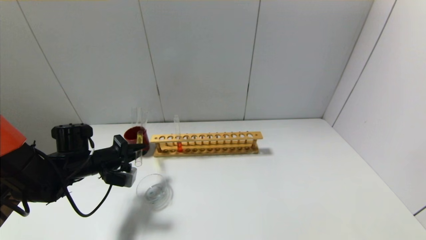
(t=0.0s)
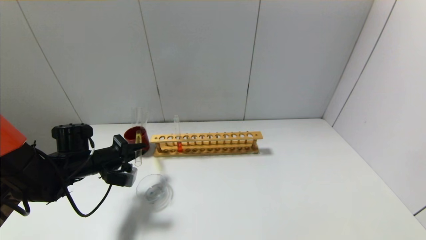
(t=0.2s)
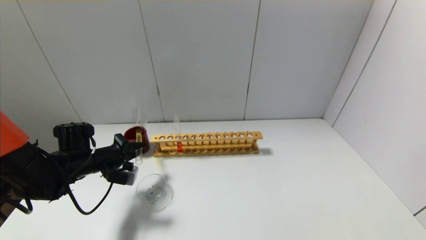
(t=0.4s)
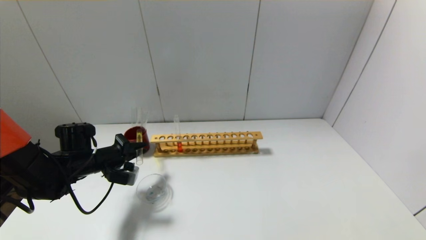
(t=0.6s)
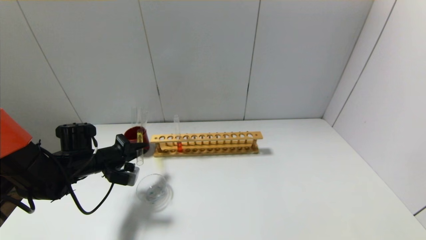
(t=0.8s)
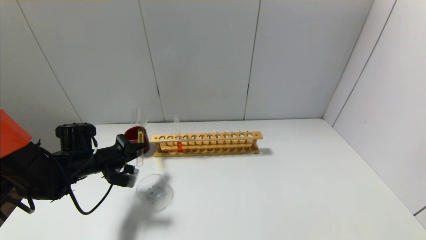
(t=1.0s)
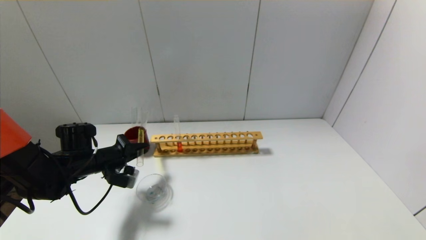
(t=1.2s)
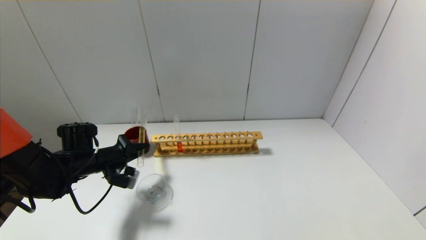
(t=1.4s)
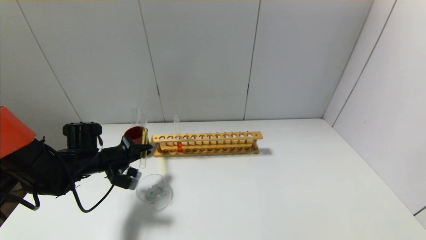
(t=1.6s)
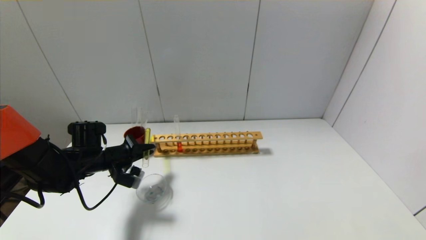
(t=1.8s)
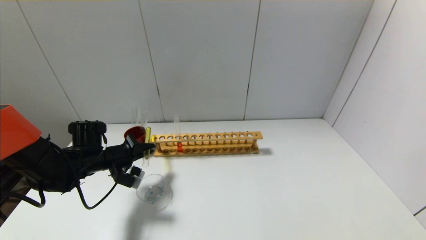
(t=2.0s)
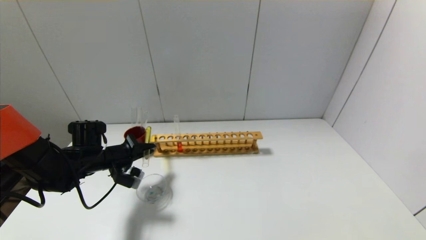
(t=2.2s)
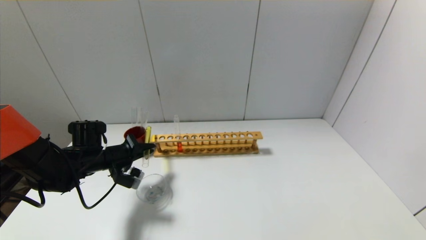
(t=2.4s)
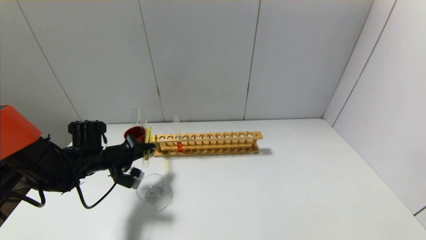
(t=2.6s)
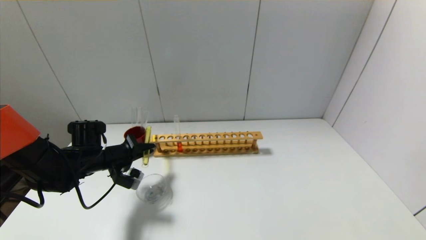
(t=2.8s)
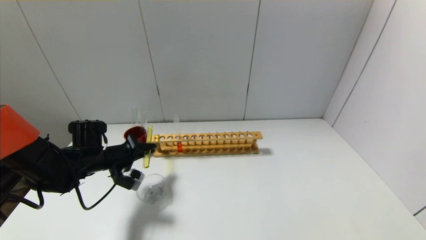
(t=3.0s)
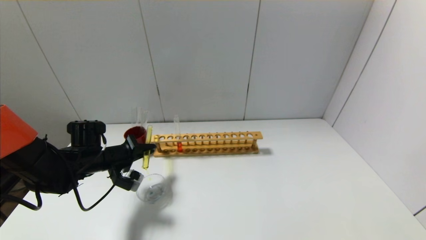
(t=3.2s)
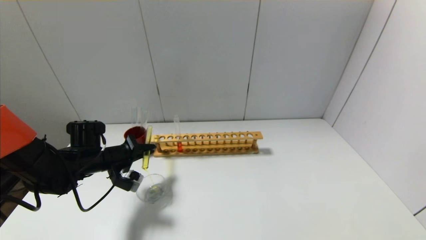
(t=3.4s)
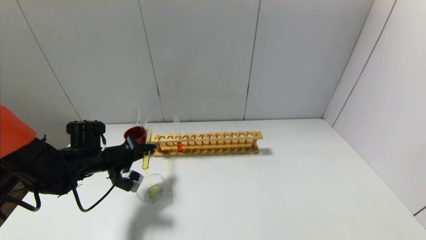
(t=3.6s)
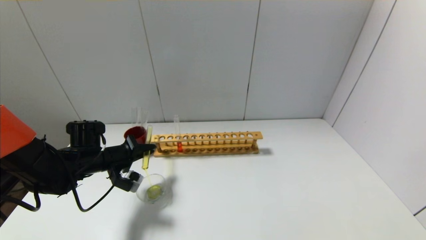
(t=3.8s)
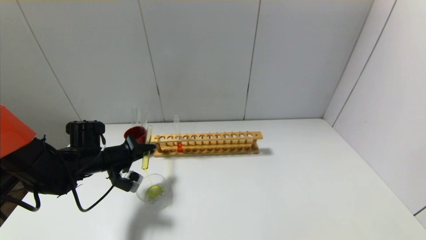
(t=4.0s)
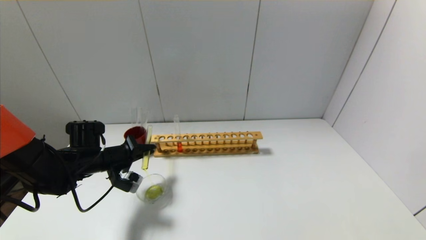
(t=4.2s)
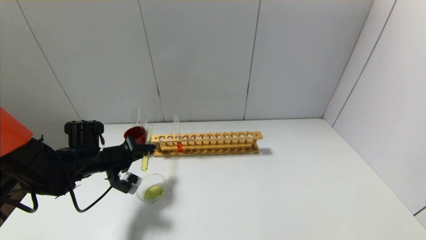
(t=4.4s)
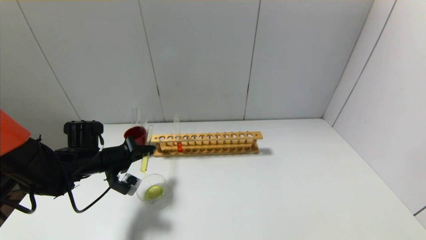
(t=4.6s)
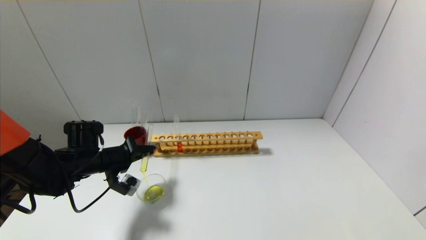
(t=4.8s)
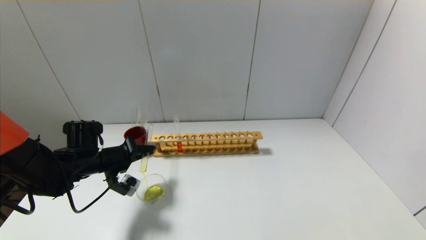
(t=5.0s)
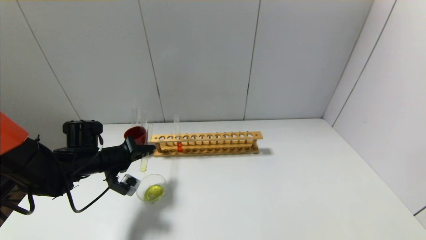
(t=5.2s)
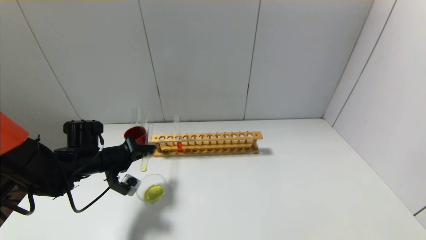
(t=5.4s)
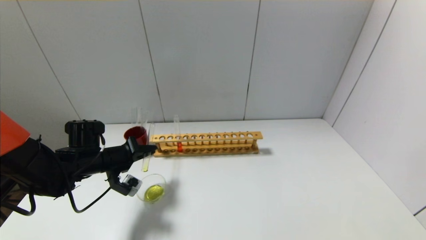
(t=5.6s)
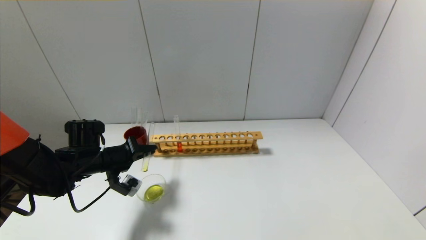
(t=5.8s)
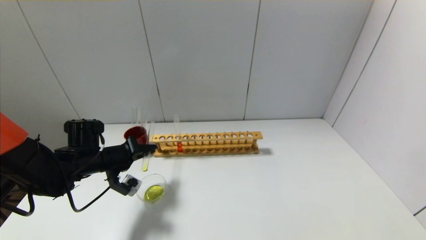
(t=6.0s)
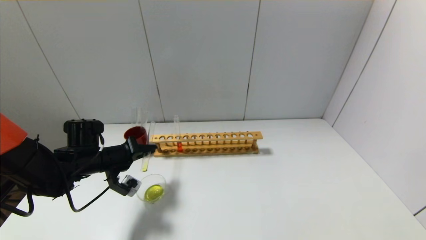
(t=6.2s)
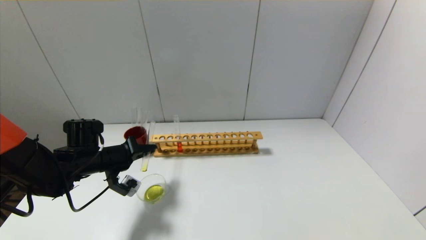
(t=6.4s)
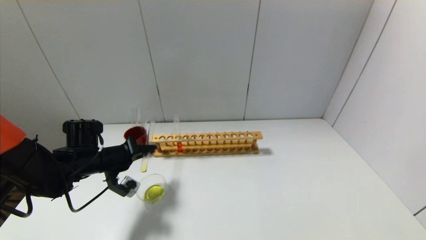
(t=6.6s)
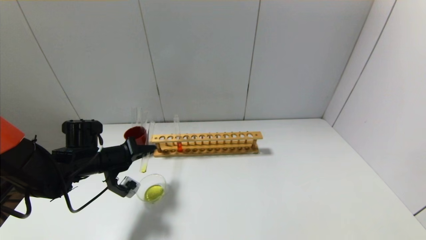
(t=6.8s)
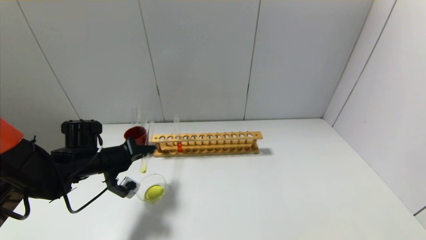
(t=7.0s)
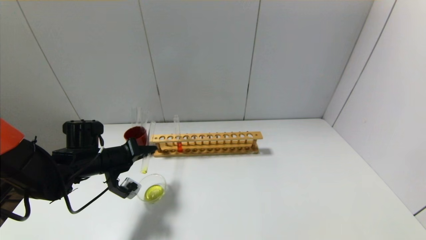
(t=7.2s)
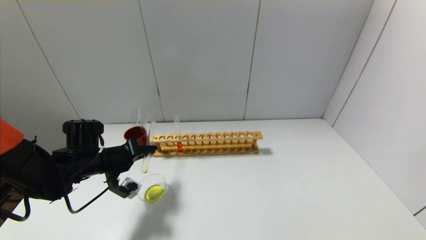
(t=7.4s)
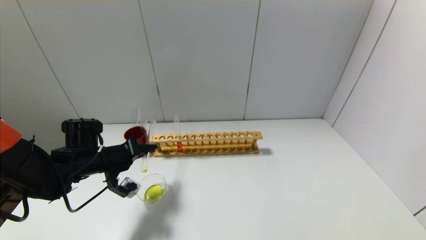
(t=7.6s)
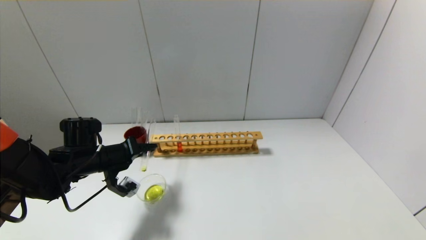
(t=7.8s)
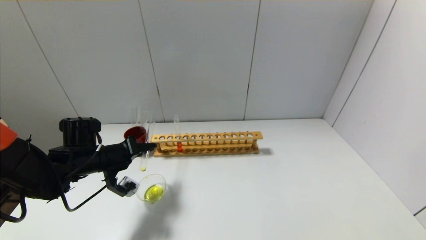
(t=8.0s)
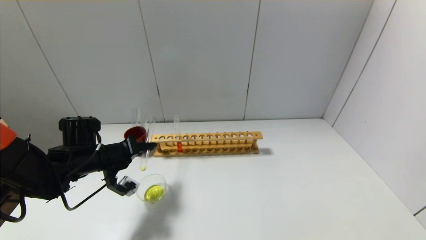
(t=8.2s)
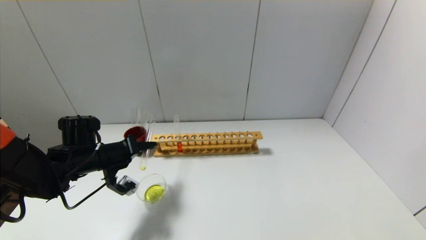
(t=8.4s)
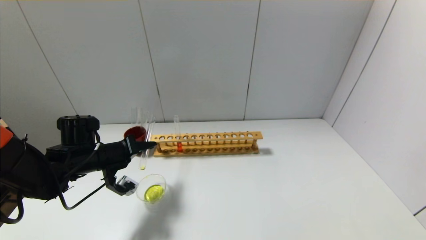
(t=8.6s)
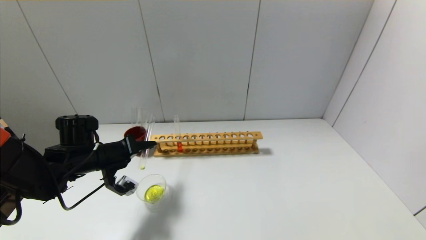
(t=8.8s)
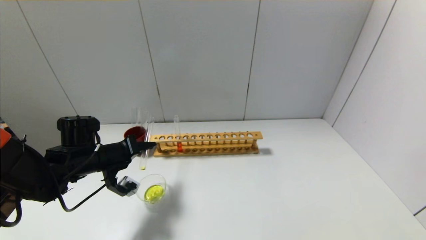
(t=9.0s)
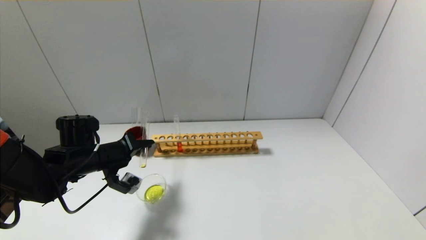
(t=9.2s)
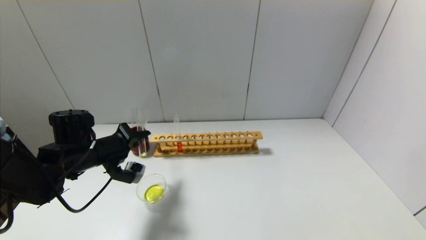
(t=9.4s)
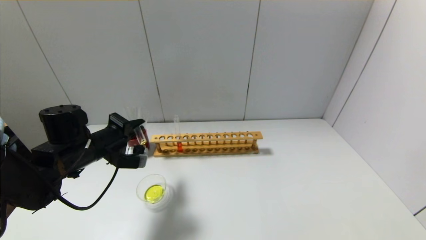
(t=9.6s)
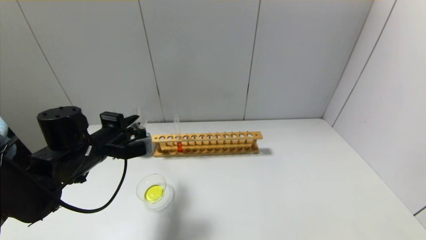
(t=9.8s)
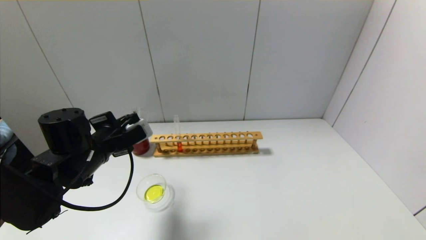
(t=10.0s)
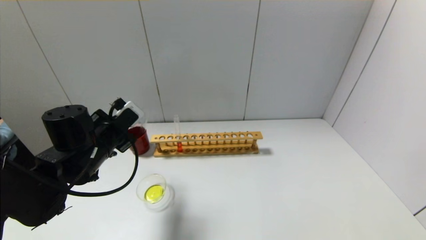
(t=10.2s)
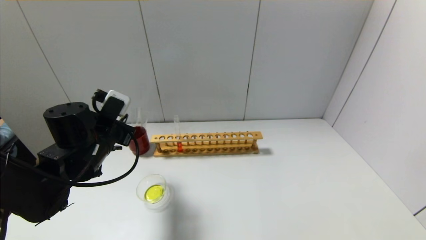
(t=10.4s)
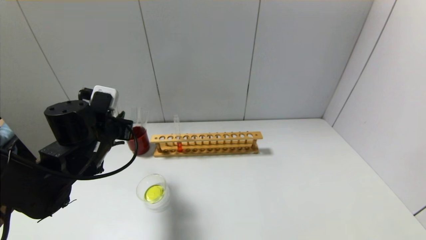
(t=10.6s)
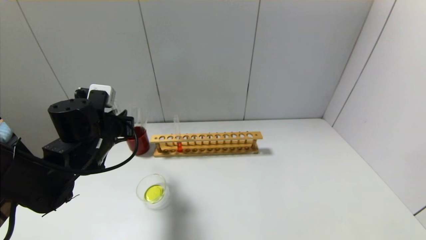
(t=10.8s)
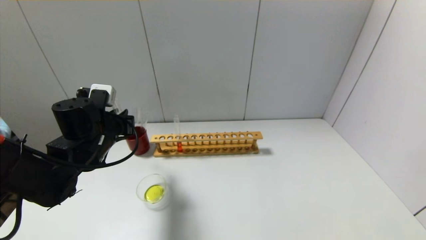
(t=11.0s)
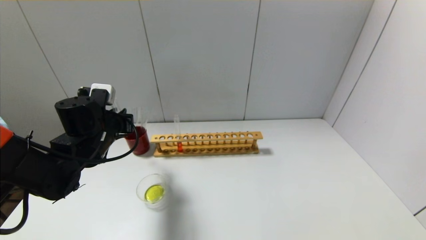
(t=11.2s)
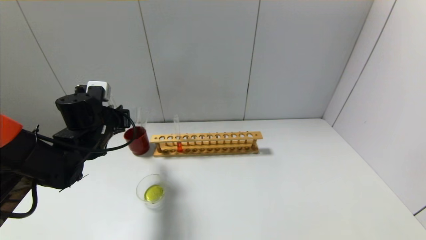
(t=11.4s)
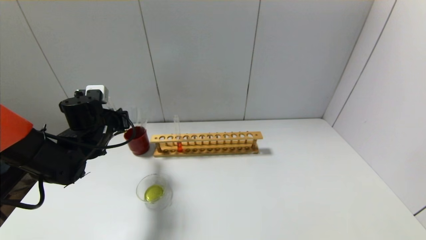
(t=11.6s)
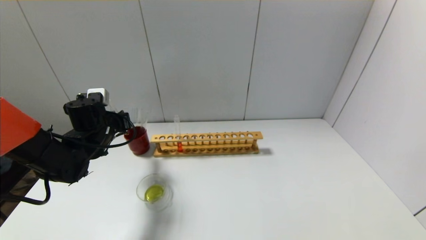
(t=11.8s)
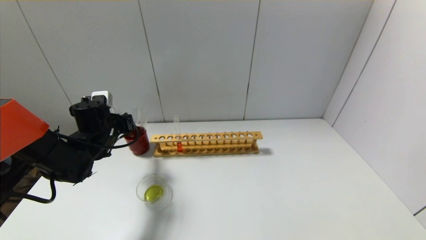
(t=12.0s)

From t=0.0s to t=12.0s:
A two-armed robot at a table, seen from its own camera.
Step, from t=0.0s to t=9.4s: Pour the yellow reagent into the graduated cylinder with the left gripper.
From t=0.0s to t=3.0s: The grippers make only small movements.
From t=3.0s to t=4.4s: Both grippers stay about where they are.
From t=4.4s to t=7.6s: The grippers stay close to where they were, moving slightly.
From t=7.6s to t=9.0s: Both grippers stay about where they are.
From t=9.0s to t=10.4s: The left gripper travels upward by approximately 5 cm.
From t=10.4s to t=12.0s: The left gripper goes about 10 cm forward.

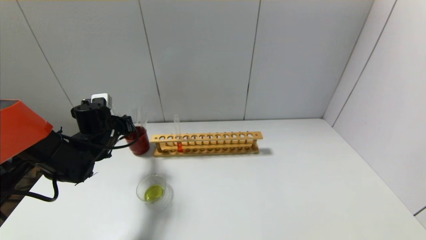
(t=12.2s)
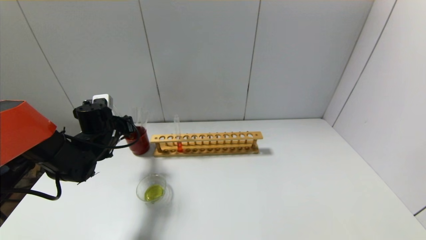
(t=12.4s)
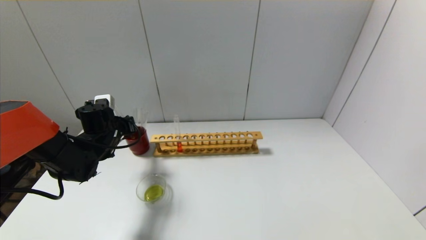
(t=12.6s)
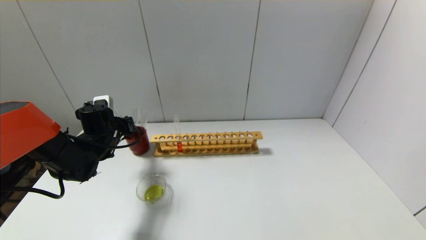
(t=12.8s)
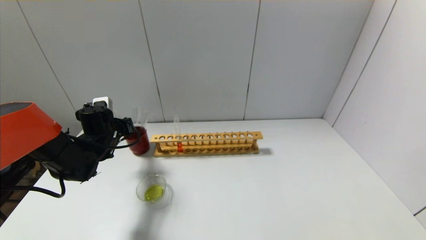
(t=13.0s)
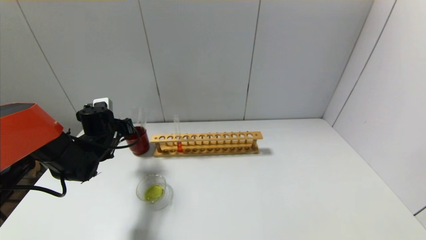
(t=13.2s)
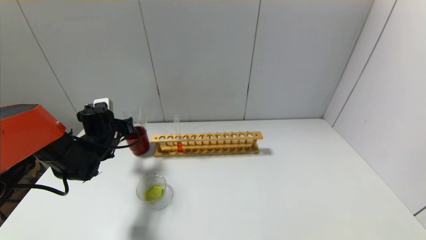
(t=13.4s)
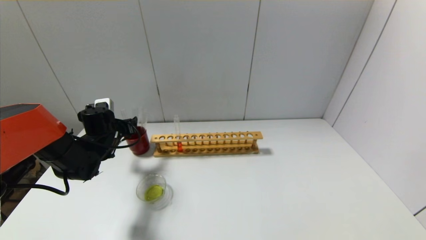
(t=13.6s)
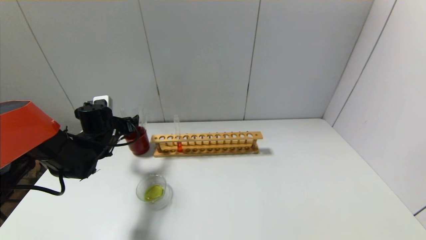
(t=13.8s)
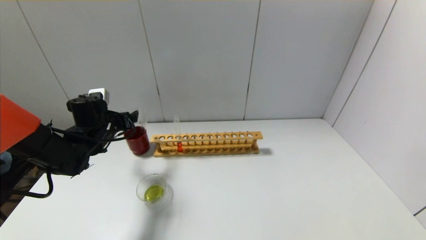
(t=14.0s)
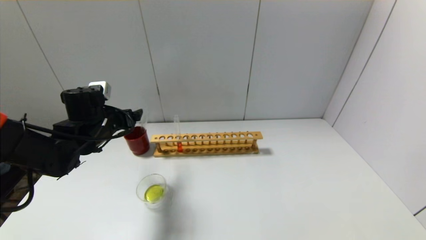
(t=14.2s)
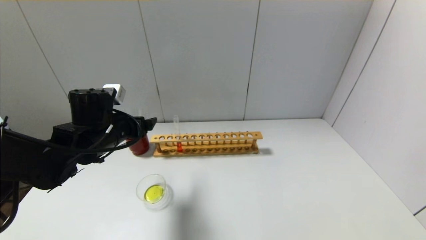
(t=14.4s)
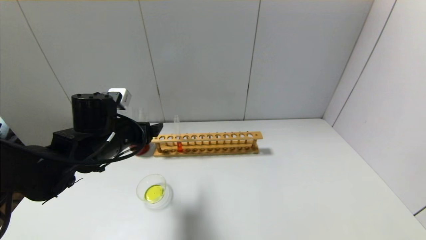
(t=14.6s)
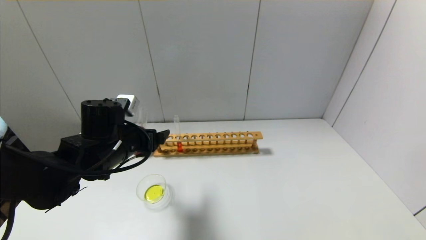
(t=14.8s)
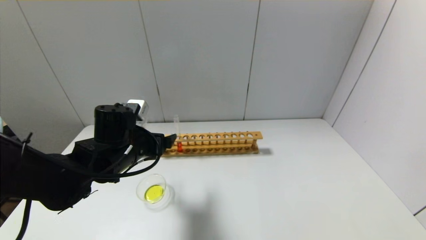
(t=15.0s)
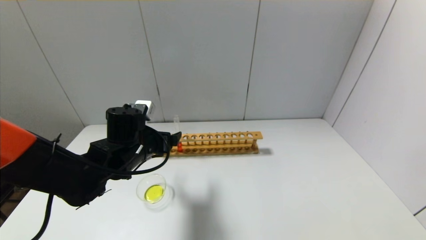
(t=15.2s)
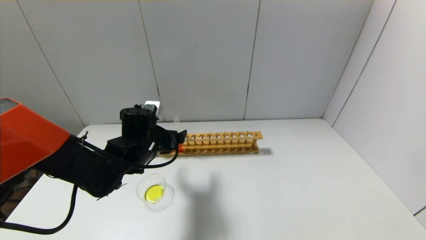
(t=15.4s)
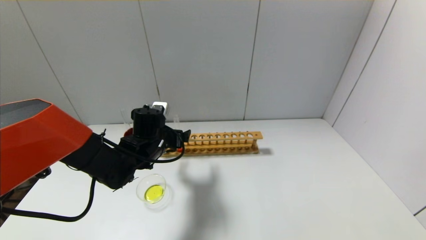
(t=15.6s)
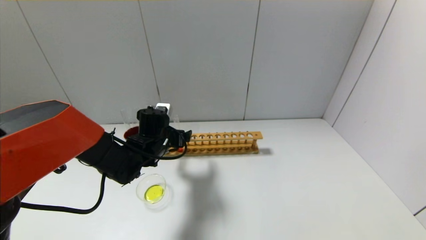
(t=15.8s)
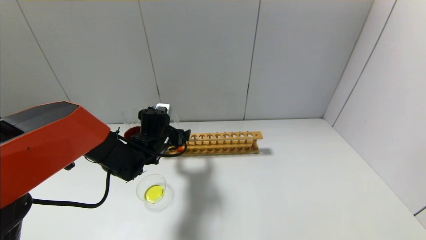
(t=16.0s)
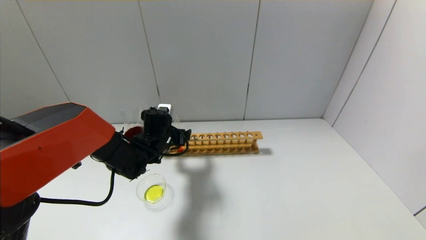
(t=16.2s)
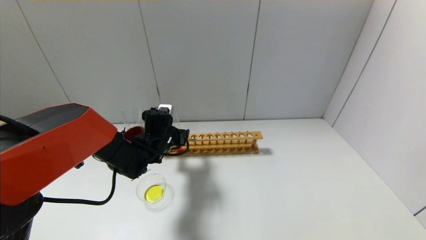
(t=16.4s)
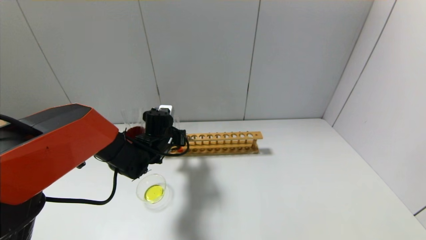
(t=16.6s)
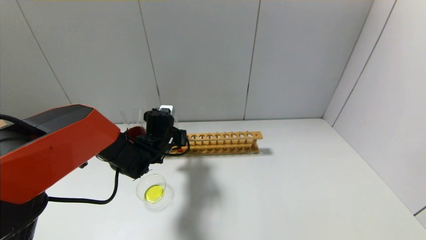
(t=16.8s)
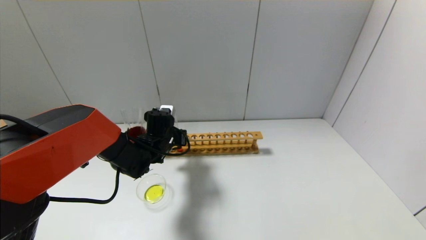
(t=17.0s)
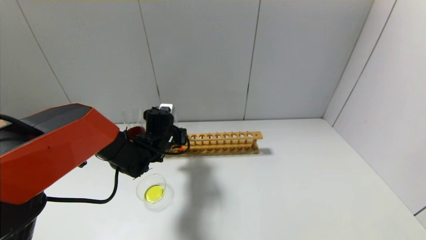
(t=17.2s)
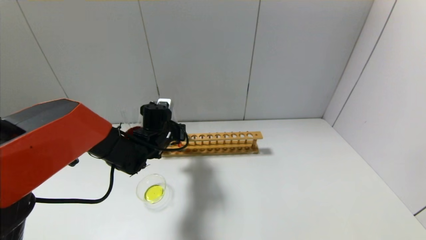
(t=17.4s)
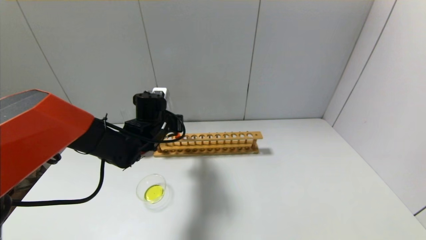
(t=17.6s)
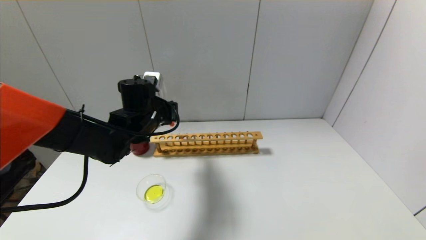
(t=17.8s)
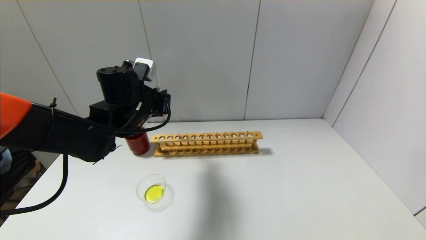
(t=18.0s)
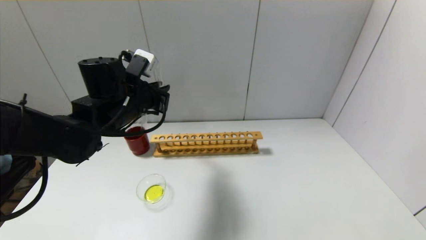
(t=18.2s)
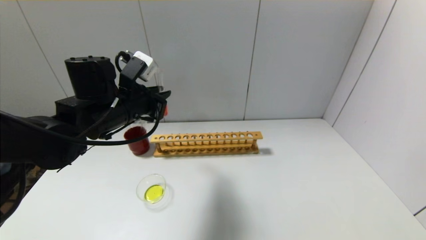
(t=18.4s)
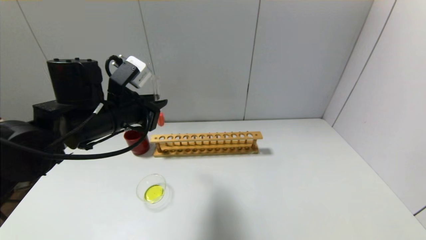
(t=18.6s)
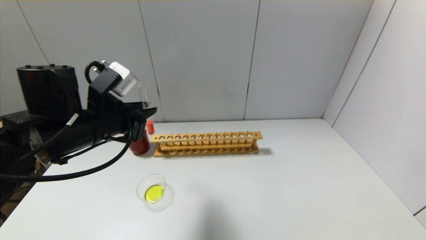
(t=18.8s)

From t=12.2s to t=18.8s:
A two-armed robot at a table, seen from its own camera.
Step, from t=13.4s to t=17.0s: Grasp the red reagent with the left gripper.
From t=12.2s to t=13.8s: The left gripper opens its fingers.
From t=13.8s to t=15.4s: The left gripper goes roughly 15 cm to the right and backward.
From t=15.4s to t=17.2s: The left gripper is displaced forward by approximately 5 cm, and closes.
From t=17.2s to t=18.8s: The left gripper shifts approximately 20 cm upward, backward and to the left.
